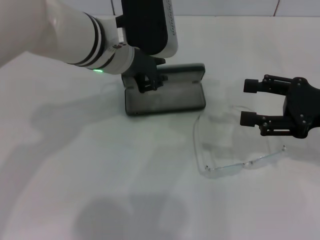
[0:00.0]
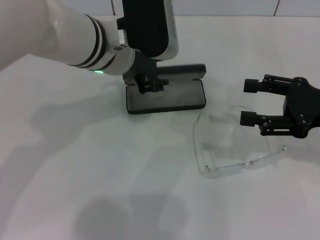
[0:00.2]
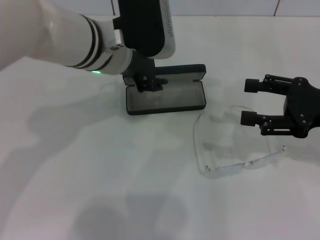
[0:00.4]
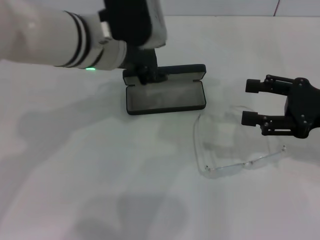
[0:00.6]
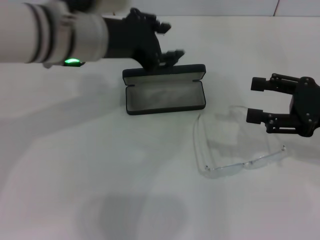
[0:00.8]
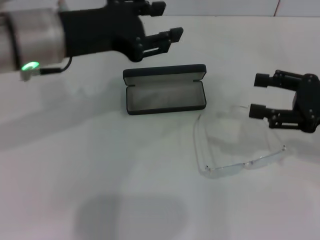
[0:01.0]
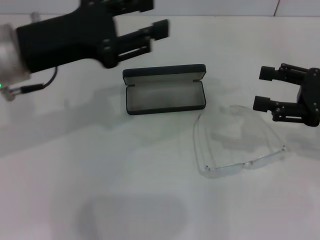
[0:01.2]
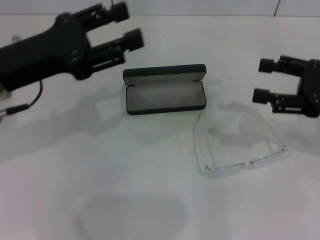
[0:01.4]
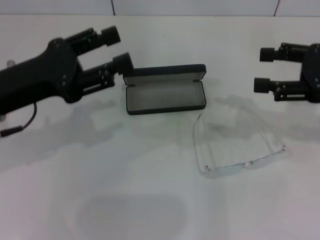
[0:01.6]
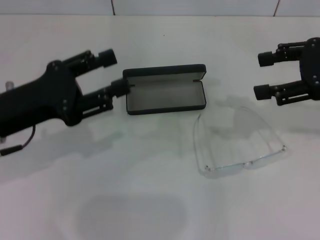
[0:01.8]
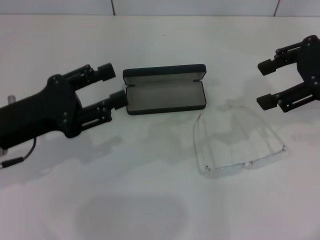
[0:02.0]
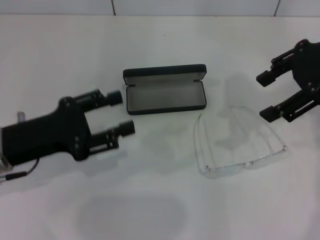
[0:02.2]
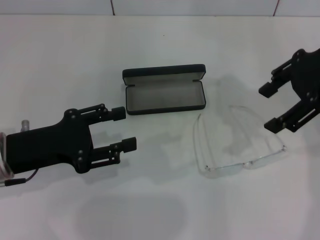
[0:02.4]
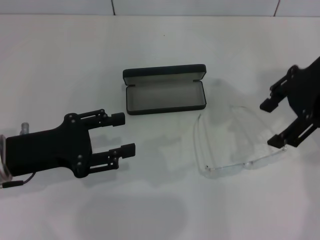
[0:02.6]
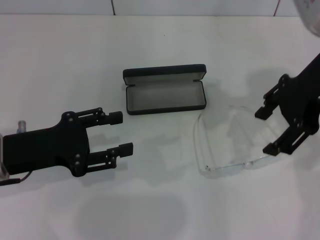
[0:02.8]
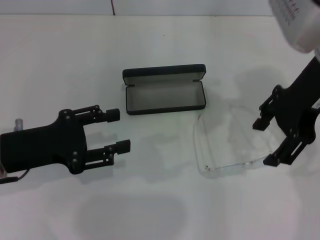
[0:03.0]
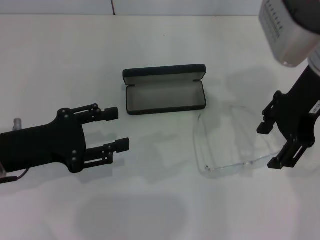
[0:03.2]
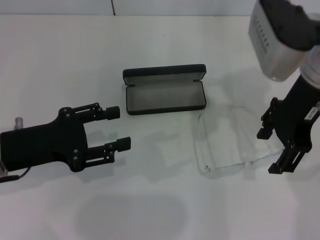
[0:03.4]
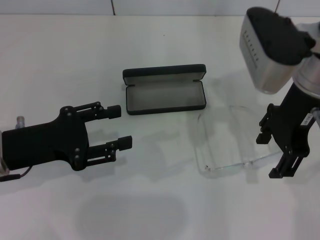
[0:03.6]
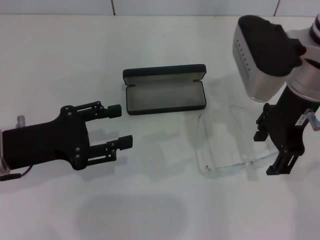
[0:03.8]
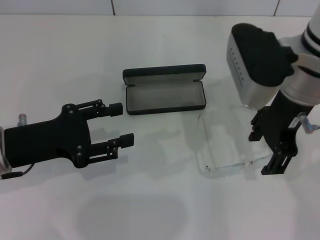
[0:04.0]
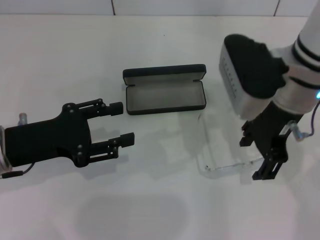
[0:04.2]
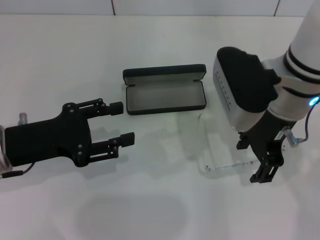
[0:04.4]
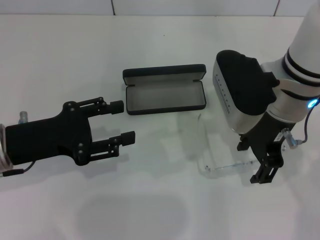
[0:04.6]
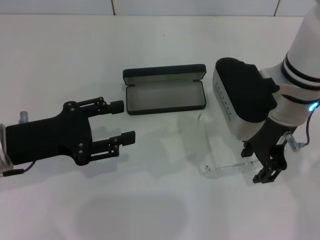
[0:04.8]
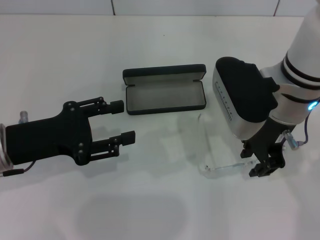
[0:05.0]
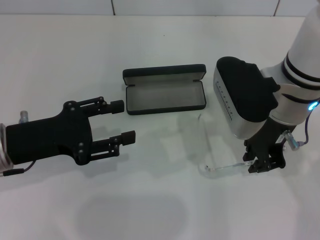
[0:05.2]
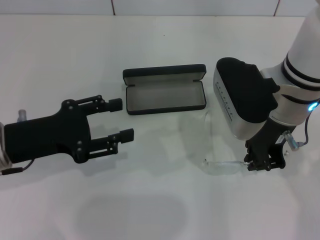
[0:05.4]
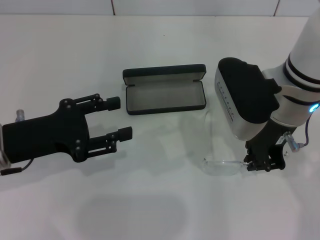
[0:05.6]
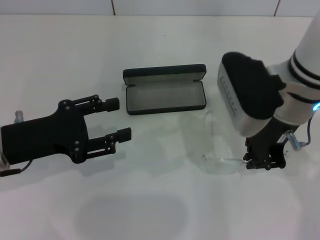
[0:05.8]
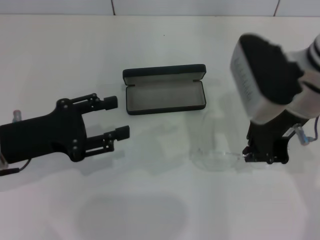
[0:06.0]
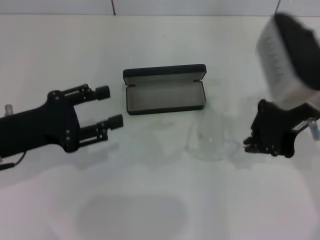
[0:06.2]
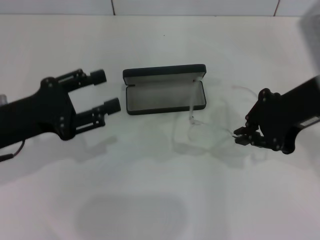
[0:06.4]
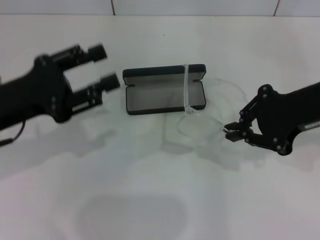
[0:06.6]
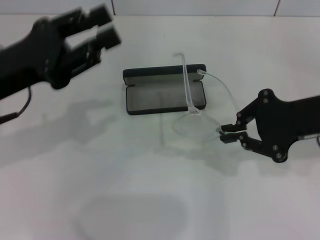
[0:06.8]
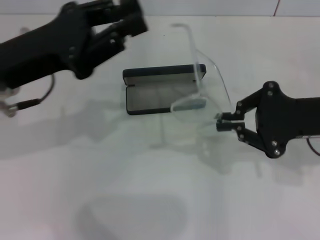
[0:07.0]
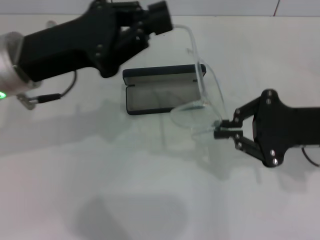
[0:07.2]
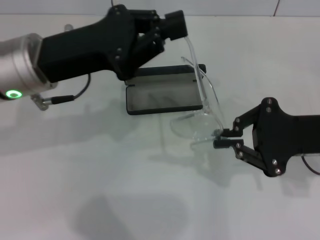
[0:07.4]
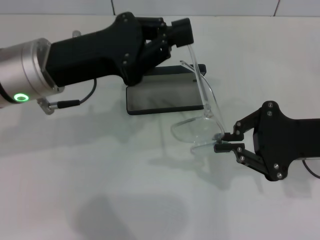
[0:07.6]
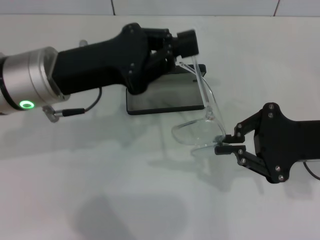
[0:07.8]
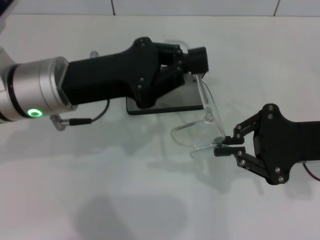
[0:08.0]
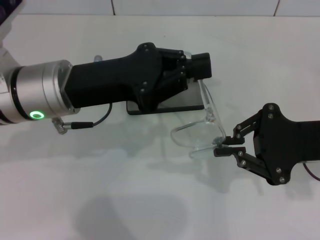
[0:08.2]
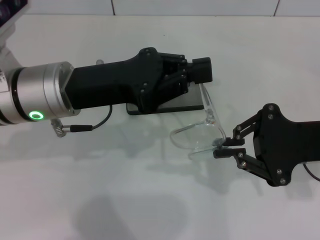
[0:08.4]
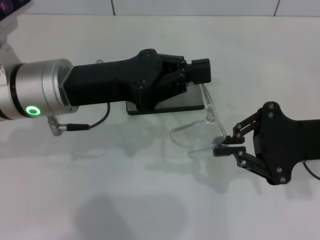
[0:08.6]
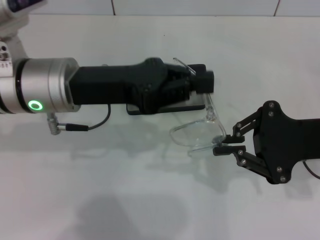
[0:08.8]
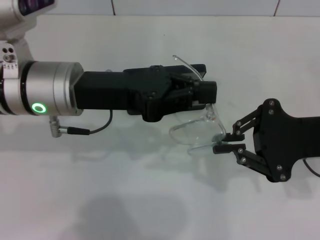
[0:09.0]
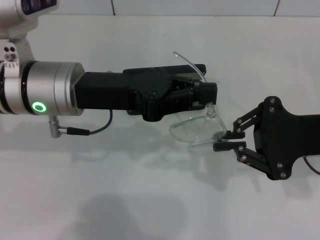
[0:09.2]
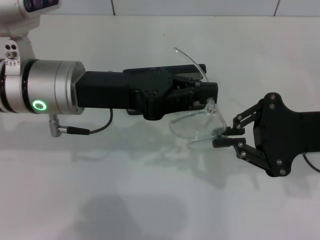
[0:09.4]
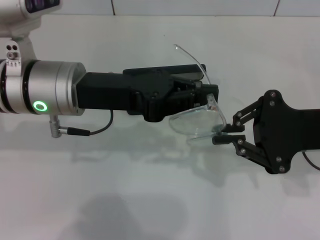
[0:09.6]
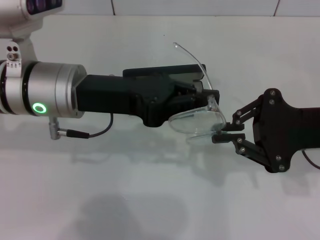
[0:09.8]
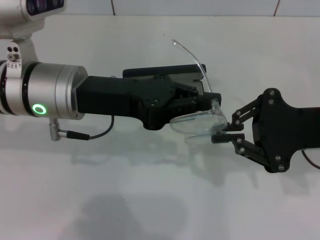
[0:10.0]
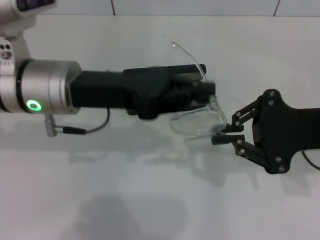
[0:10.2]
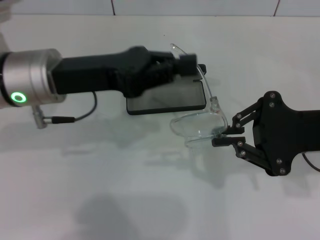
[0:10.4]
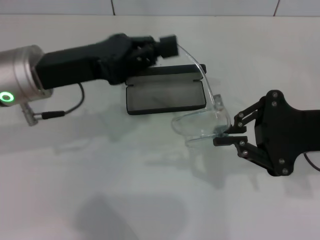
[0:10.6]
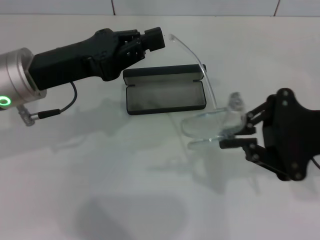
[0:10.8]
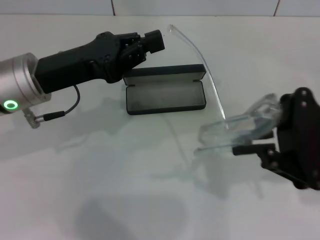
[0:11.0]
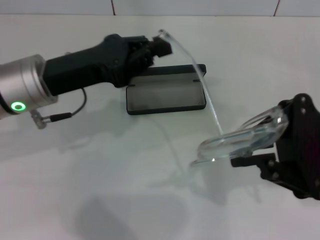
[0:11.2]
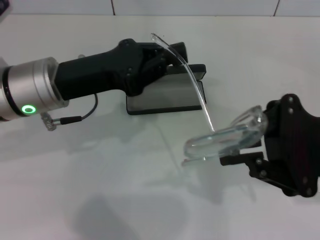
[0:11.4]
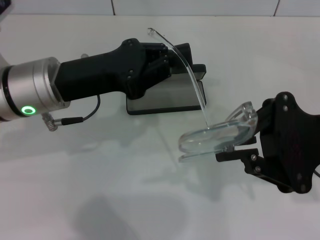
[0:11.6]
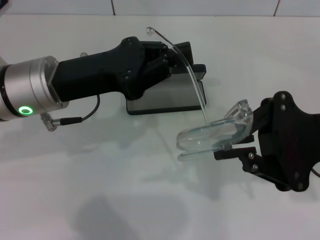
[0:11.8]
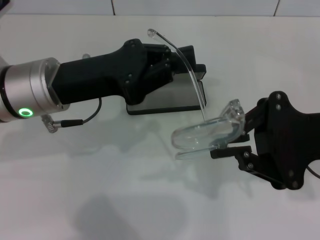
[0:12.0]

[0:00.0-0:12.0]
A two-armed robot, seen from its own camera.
Step, 0:00.2 to 0:05.2: Grab the eyeglass frame with your right hand.
0:00.0 to 0:01.6: The left gripper heads to the left and backward, covering about 20 cm, and opens. Meanwhile the right gripper ends up some 5 cm from where it was.
0:01.6 to 0:03.0: The right gripper travels to the left and upward by approximately 15 cm. Meanwhile the left gripper goes roughly 5 cm downward.
0:03.0 to 0:04.4: The right gripper goes roughly 5 cm downward.
0:04.4 to 0:06.0: The right gripper closes its fingers.
0:06.0 to 0:07.6: The left gripper shifts about 10 cm to the right, upward and forward, and closes its fingers. The right gripper shifts roughly 15 cm to the right, downward and backward.
0:10.4 to 0:12.0: The grippers stay close to where they were, moving slightly.

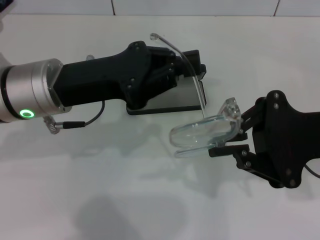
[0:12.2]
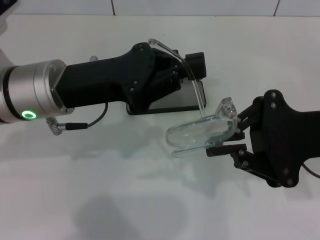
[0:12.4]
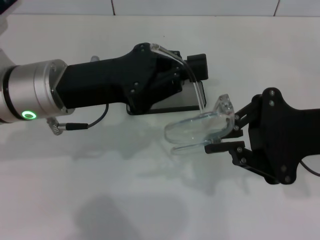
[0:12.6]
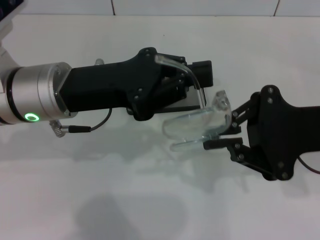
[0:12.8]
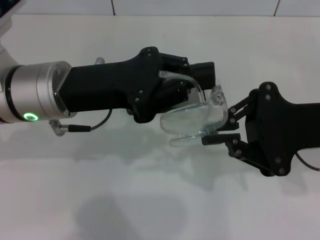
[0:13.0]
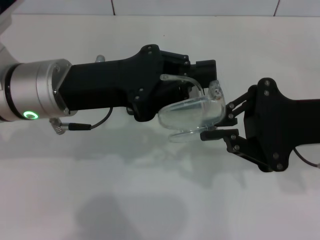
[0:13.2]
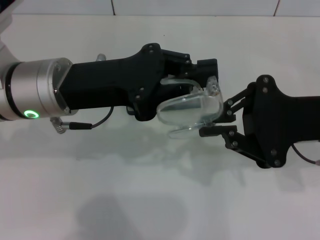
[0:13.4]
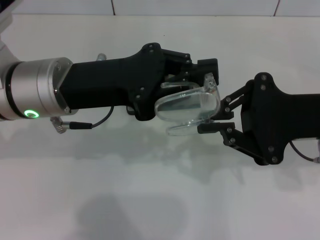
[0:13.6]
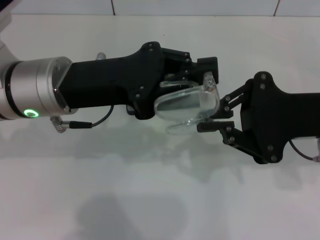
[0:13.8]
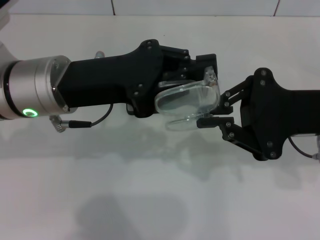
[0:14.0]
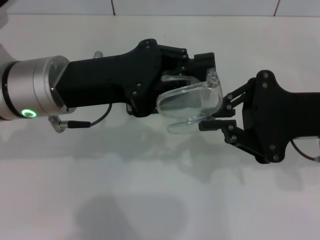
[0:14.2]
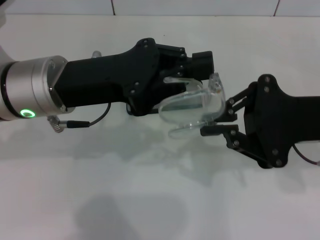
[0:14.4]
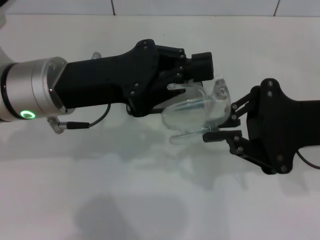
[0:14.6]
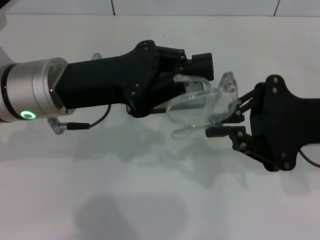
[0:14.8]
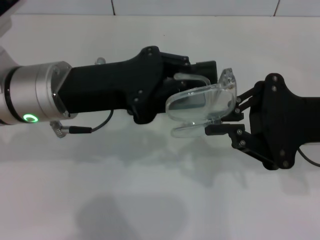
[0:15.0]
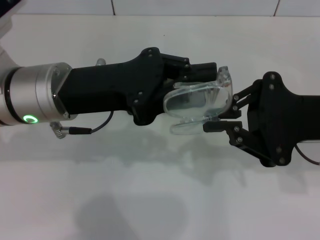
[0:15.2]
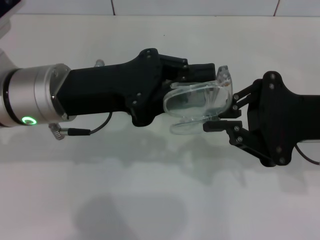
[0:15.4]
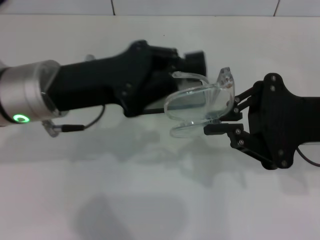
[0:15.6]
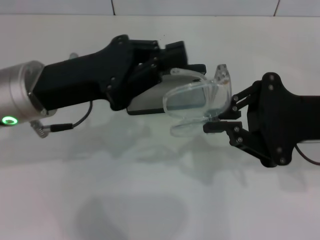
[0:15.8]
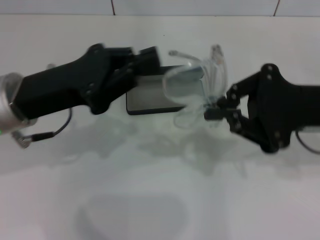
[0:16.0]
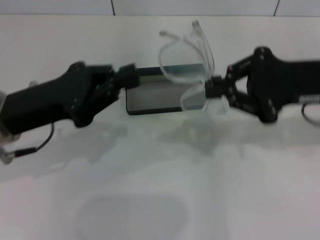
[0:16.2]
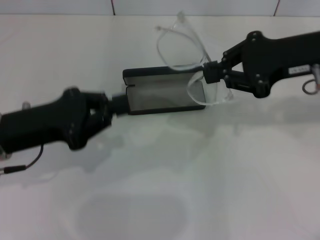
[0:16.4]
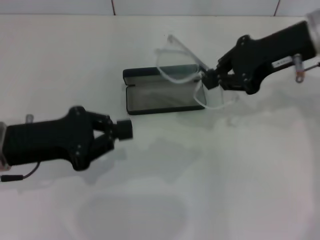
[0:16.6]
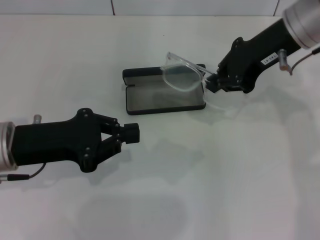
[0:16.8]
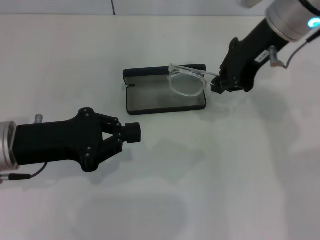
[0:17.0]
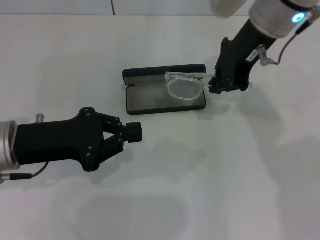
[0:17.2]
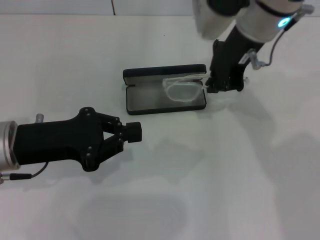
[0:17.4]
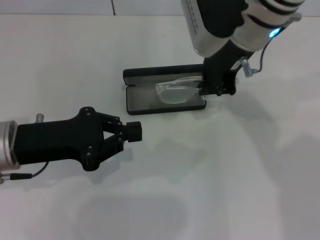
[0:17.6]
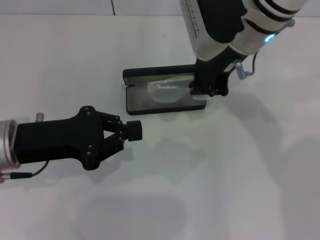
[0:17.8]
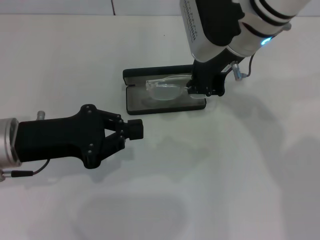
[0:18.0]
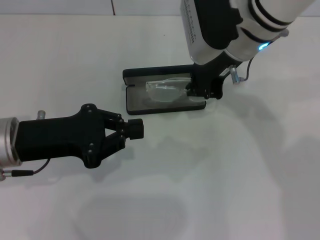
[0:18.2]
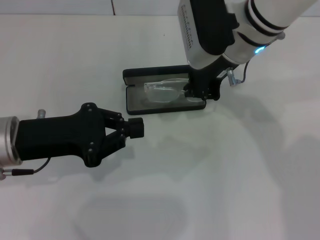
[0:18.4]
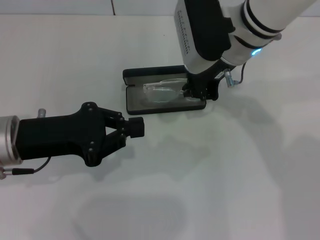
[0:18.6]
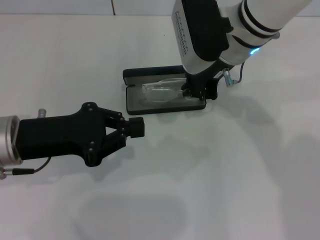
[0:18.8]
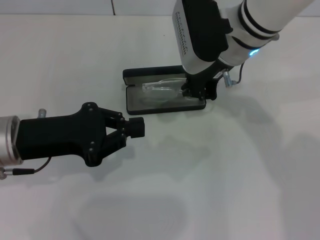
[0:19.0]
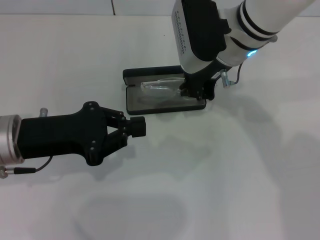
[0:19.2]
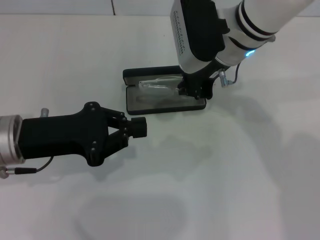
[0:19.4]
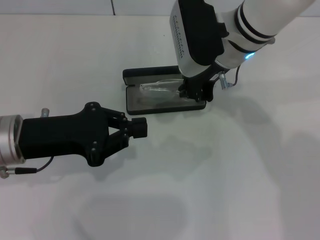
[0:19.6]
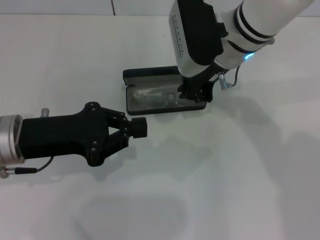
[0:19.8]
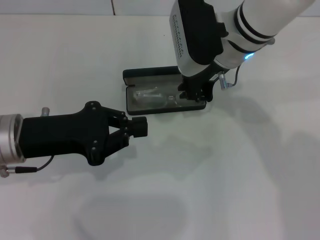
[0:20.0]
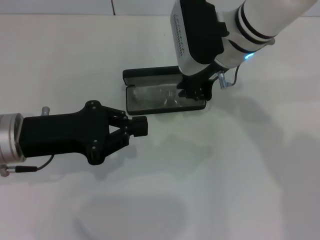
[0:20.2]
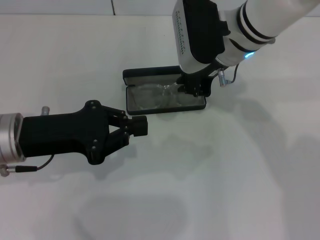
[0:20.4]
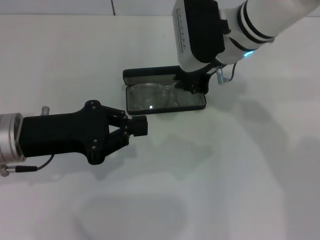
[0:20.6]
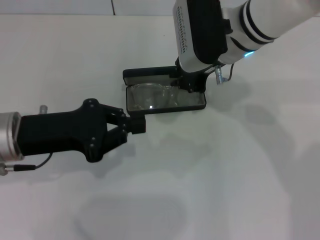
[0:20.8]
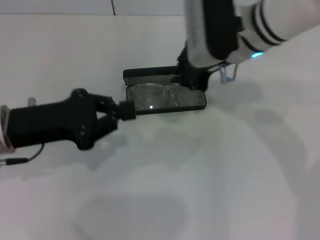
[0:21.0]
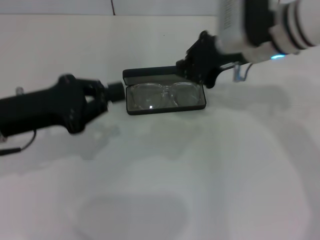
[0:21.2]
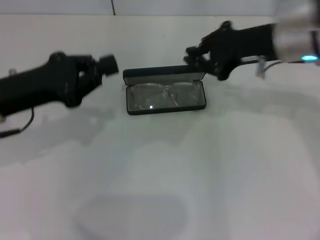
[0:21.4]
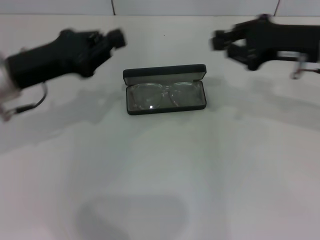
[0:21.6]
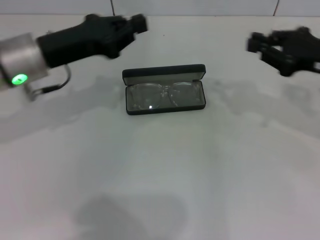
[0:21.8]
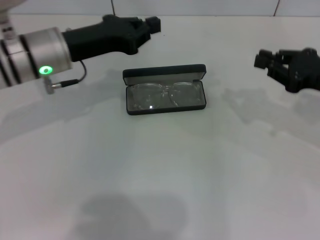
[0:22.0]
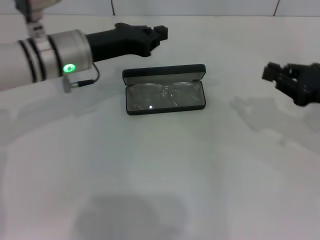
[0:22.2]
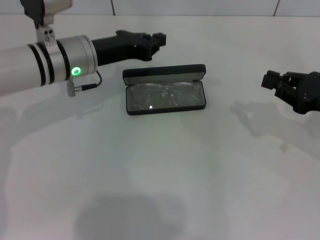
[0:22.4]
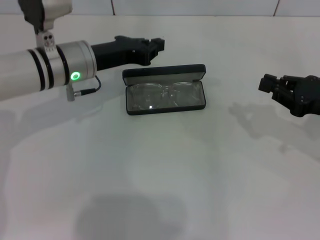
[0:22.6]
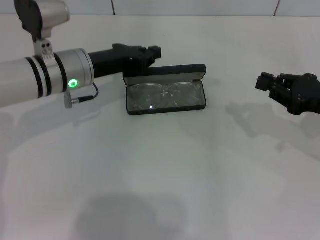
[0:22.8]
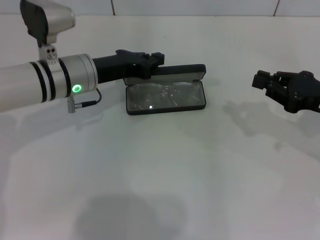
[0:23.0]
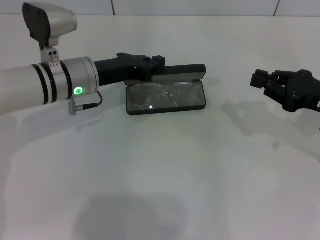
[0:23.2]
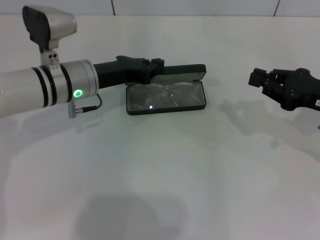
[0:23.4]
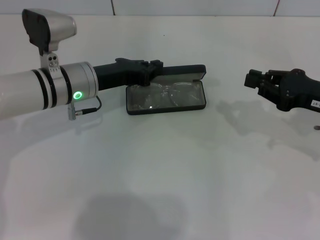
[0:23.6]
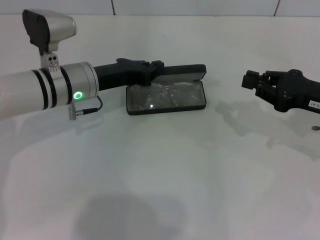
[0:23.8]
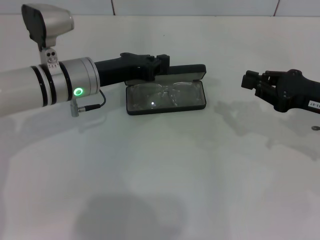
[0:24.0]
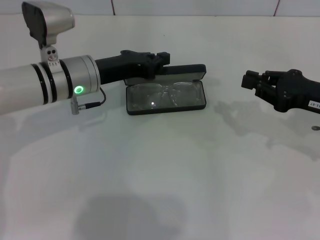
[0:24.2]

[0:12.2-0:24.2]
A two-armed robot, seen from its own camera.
Step, 0:12.2 to 0:14.2: Fold the frame with your left hand.
Step, 0:14.6 to 0:20.6: Put the glasses into the case with your right hand.
0:12.2 to 0:13.8: The grippers stay close to where they were, moving slightly.
0:13.8 to 0:15.2: Both grippers stay about where they are.
0:15.2 to 0:16.6: The left gripper is displaced to the left by some 10 cm. The right gripper moves forward and upward, some 10 cm.
0:16.6 to 0:18.2: The right gripper moves to the left, some 10 cm.
0:18.2 to 0:19.8: The grippers make only small movements.
0:19.8 to 0:21.2: The right gripper goes roughly 5 cm to the right.
0:21.2 to 0:22.6: The right gripper is displaced to the right, downward and backward by approximately 20 cm; the left gripper is displaced forward and to the right by some 15 cm.
0:22.6 to 0:24.2: There are only small adjustments of the grippers.
